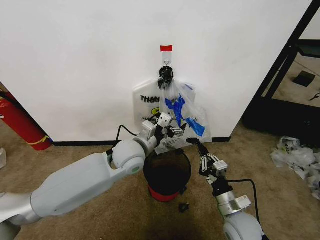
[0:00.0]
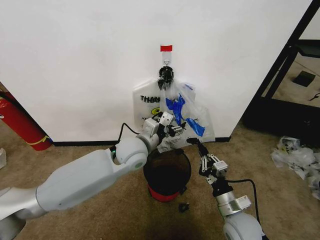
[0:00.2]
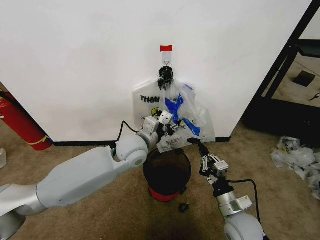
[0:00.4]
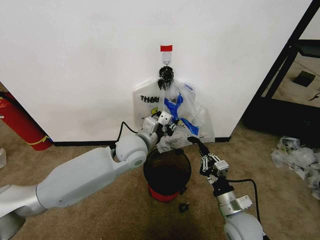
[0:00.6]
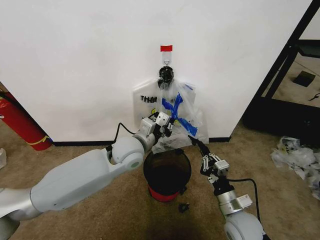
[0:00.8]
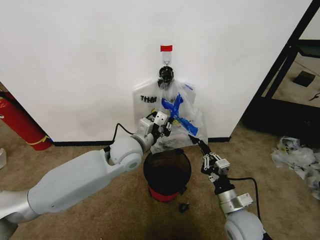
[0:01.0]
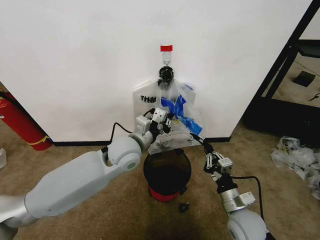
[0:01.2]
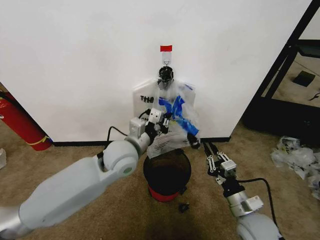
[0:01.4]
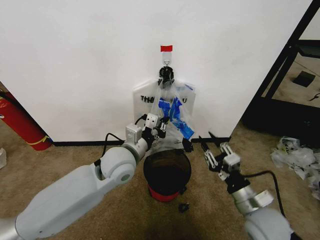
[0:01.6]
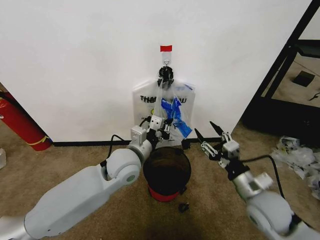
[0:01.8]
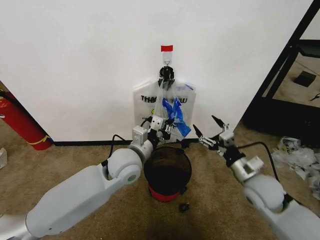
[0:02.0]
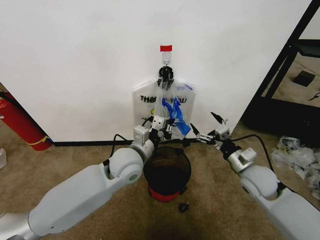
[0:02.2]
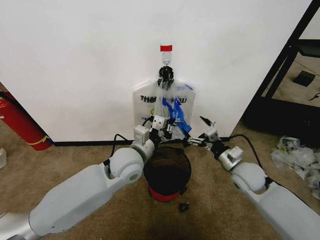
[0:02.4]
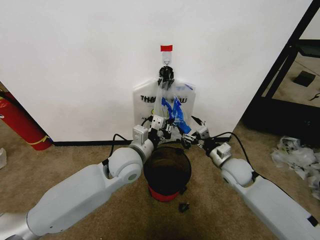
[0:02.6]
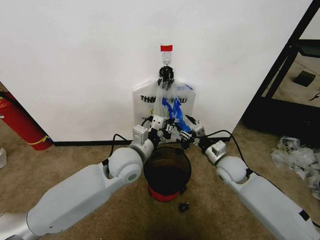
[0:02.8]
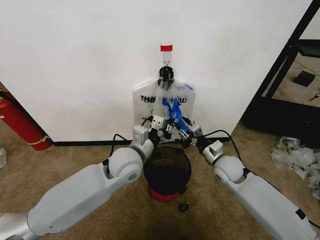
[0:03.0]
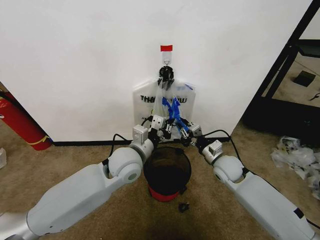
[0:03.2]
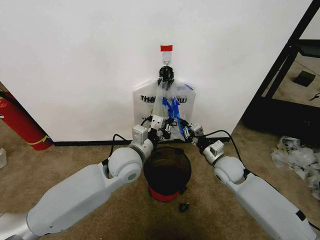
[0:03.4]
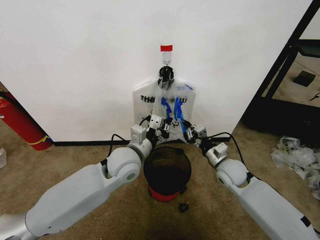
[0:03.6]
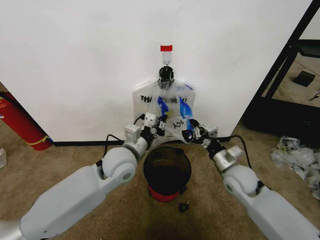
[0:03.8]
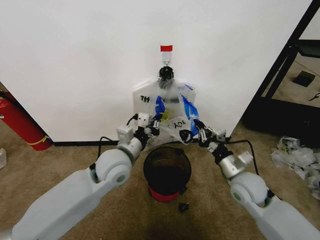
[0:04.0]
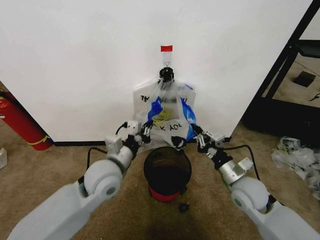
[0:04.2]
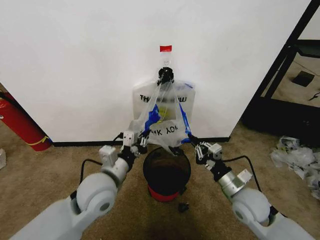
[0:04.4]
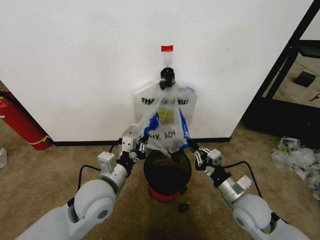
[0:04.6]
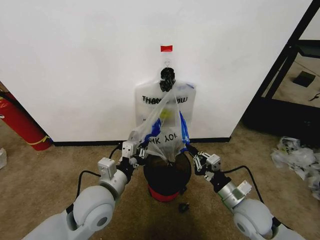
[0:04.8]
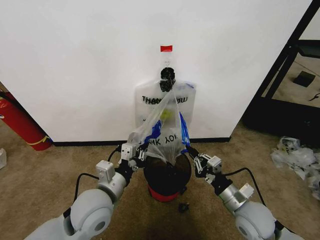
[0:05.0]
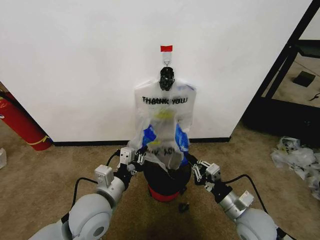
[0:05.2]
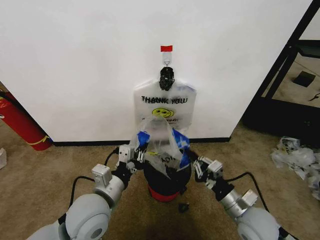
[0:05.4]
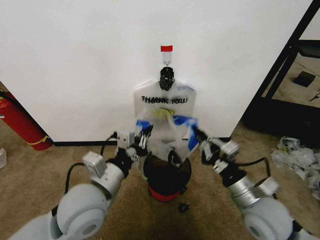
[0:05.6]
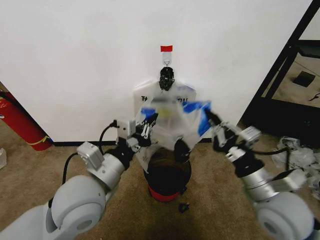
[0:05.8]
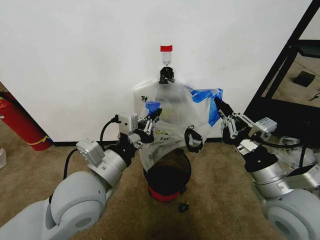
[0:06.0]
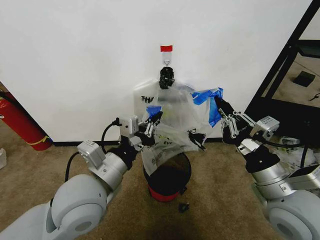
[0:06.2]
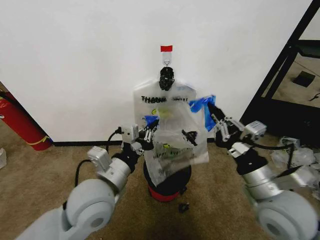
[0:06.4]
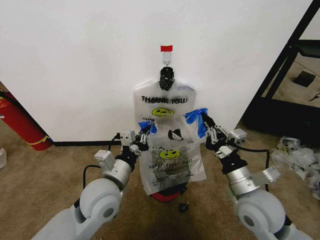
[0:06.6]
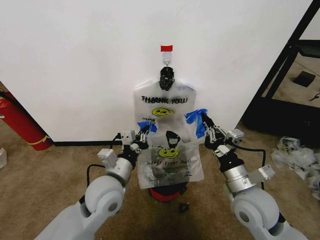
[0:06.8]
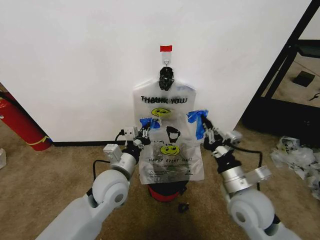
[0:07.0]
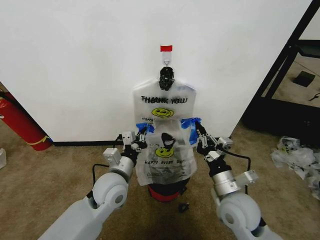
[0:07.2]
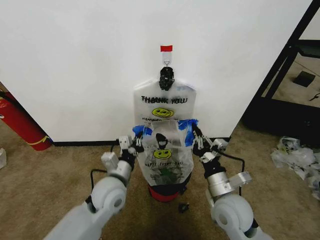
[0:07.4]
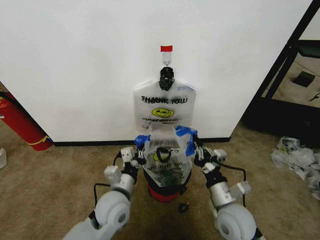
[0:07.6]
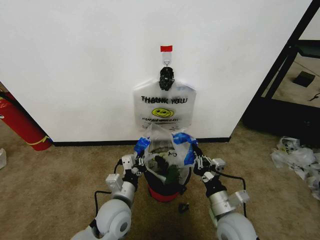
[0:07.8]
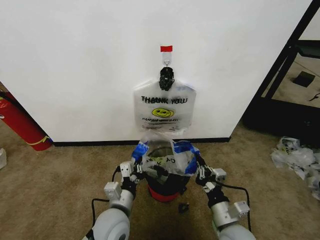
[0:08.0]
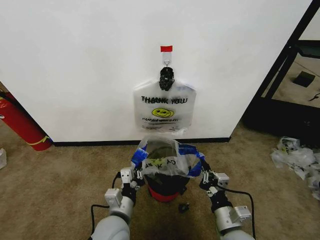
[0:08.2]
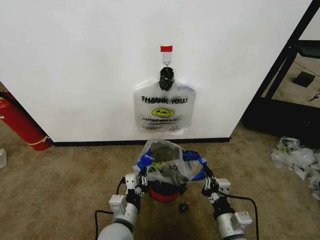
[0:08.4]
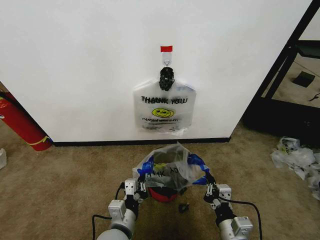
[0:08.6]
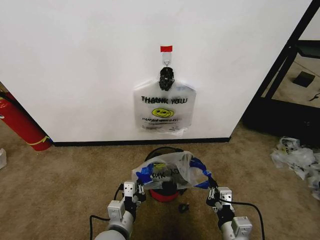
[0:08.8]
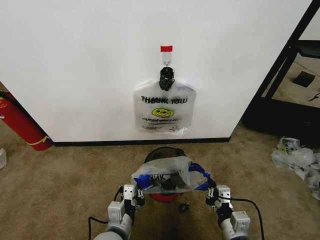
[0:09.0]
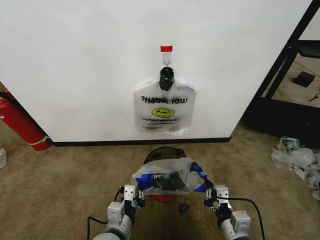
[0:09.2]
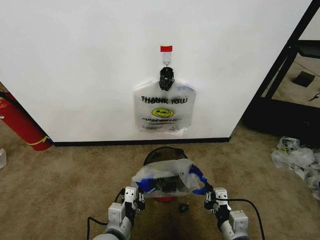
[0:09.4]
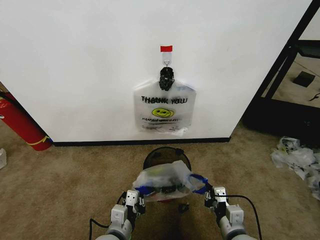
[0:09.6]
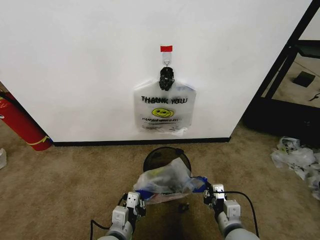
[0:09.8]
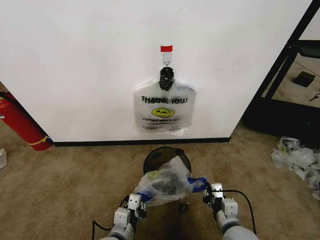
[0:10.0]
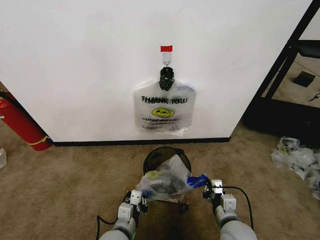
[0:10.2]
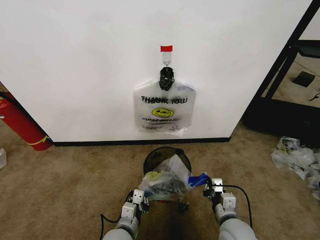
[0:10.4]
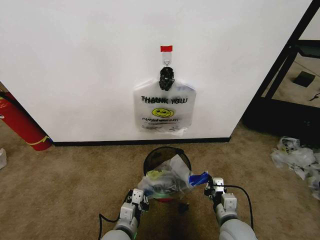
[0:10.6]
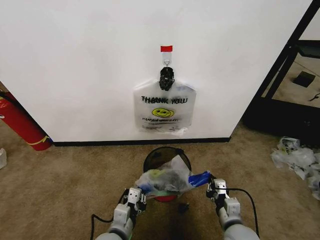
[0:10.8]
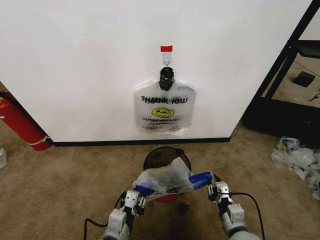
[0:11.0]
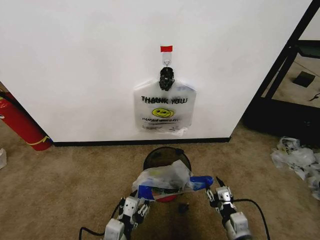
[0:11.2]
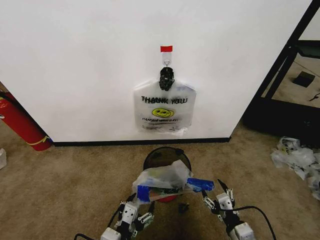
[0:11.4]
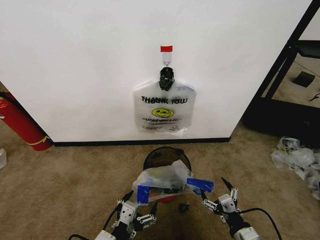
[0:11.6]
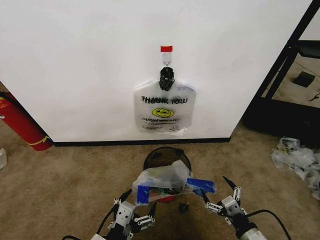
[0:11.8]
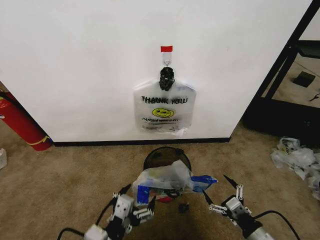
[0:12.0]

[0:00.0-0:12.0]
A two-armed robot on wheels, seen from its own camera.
Task of the whole recording: Pick up the garbage bag from the wall and place it over the trash bin.
0:00.0 to 0:01.6: The right gripper heads upward, covering roughly 5 cm. The left gripper closes.
0:01.6 to 0:03.0: The right gripper heads forward, covering some 20 cm, and opens, then closes again.
0:03.0 to 0:04.4: The right gripper is displaced backward by approximately 10 cm, and closes up. Meanwhile the left gripper moves backward and to the left, about 10 cm.
0:04.4 to 0:06.0: The left gripper travels upward and backward by approximately 10 cm, while the right gripper shifts approximately 15 cm upward and backward.
0:06.0 to 0:07.6: The right gripper heads downward and to the left, covering roughly 15 cm. Meanwhile the left gripper shifts some 20 cm downward.
0:07.6 to 0:09.0: Both grippers travel together backward, roughly 10 cm.
0:09.0 to 0:10.4: The left gripper moves approximately 5 cm, while the right gripper goes some 5 cm forward.
0:10.4 to 0:12.0: The left gripper goes roughly 15 cm upward and backward, and opens up, while the right gripper moves to the right and backward, about 15 cm, and opens up.

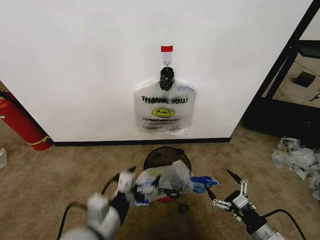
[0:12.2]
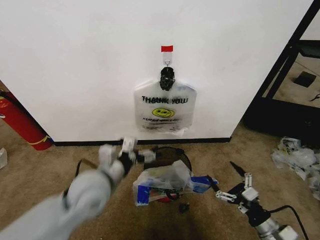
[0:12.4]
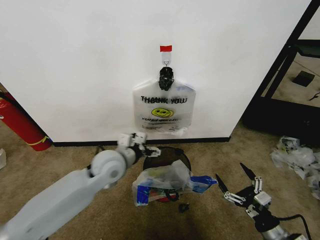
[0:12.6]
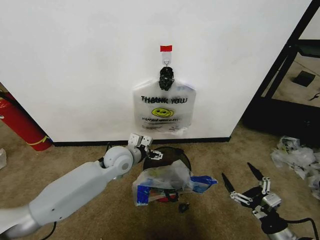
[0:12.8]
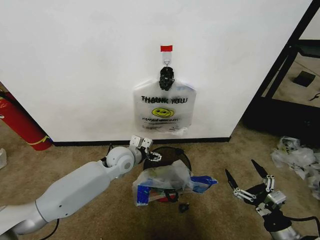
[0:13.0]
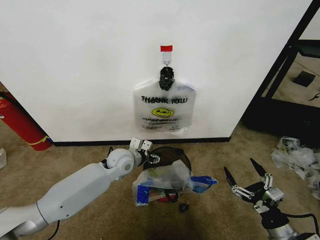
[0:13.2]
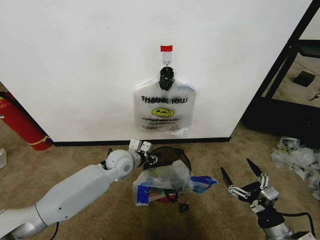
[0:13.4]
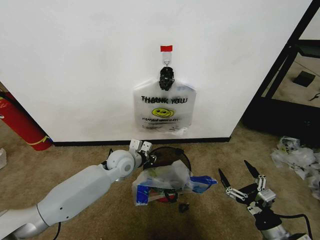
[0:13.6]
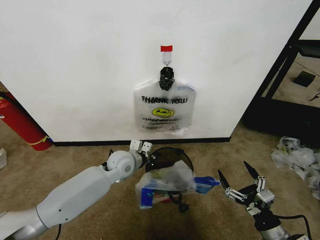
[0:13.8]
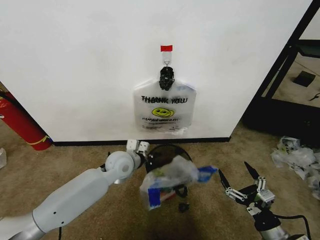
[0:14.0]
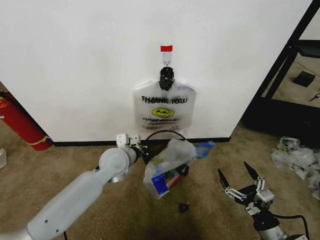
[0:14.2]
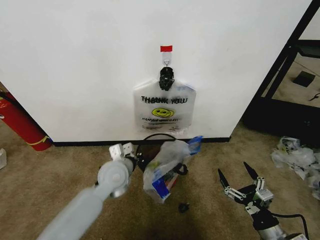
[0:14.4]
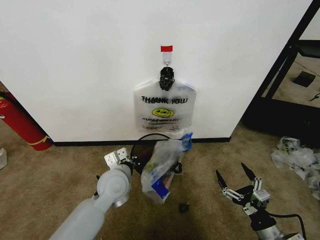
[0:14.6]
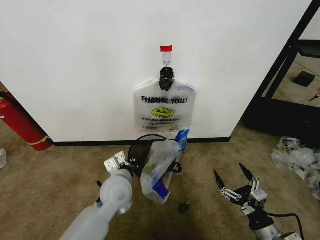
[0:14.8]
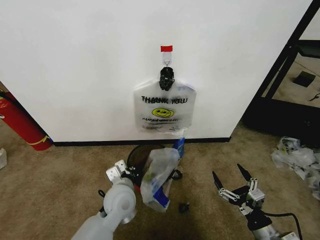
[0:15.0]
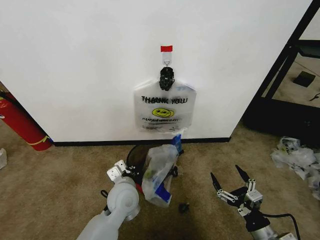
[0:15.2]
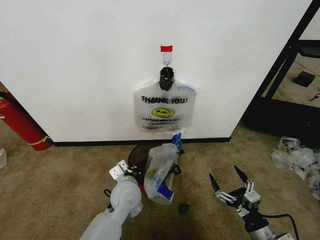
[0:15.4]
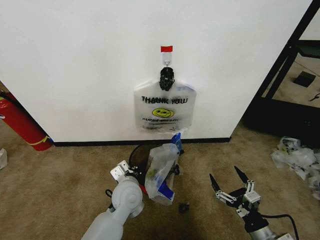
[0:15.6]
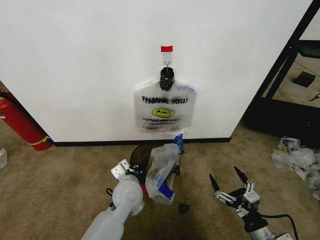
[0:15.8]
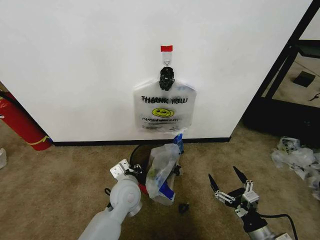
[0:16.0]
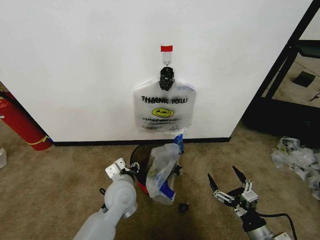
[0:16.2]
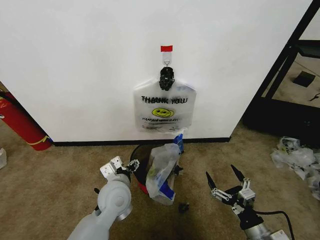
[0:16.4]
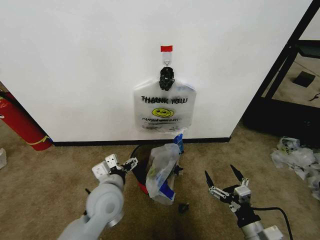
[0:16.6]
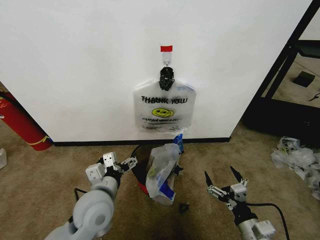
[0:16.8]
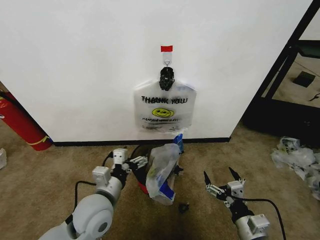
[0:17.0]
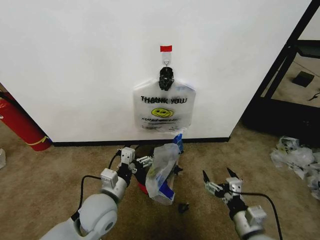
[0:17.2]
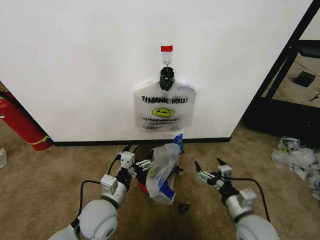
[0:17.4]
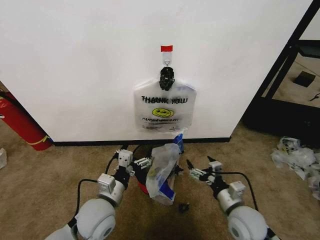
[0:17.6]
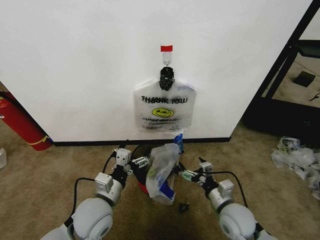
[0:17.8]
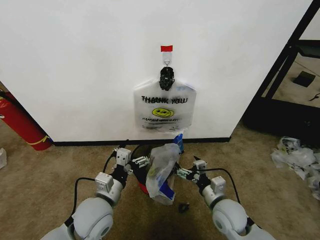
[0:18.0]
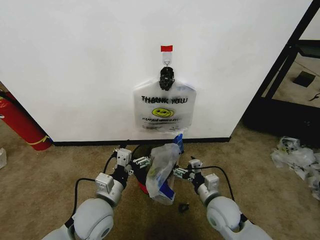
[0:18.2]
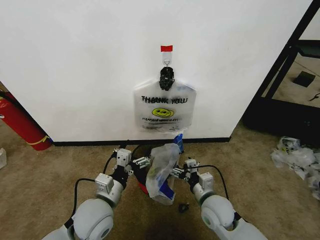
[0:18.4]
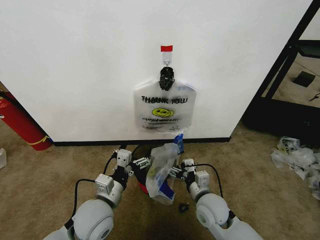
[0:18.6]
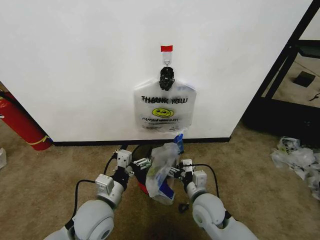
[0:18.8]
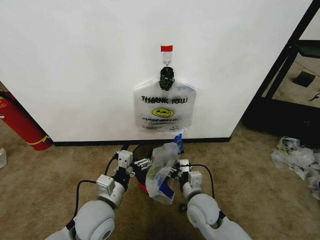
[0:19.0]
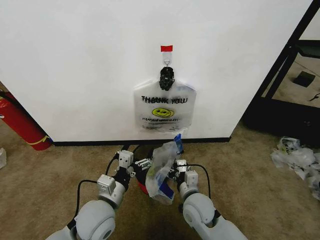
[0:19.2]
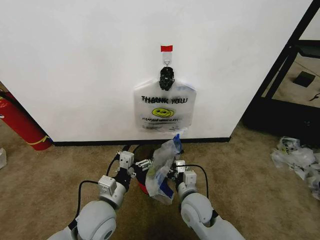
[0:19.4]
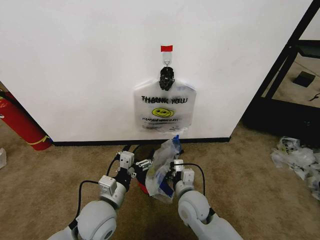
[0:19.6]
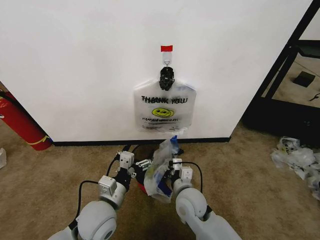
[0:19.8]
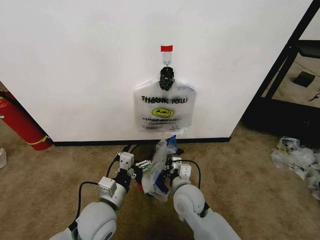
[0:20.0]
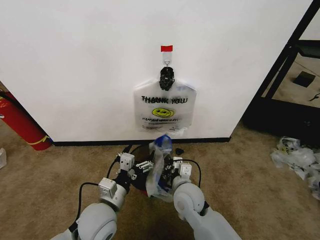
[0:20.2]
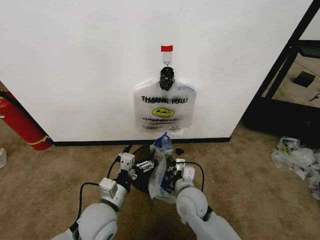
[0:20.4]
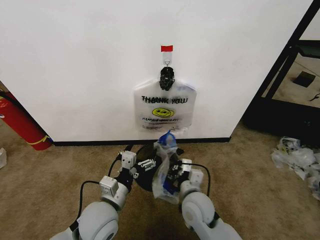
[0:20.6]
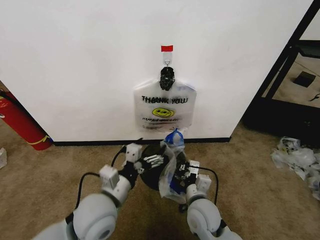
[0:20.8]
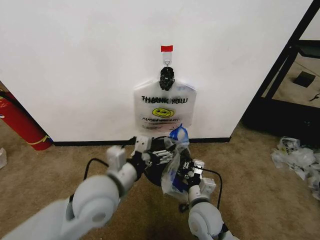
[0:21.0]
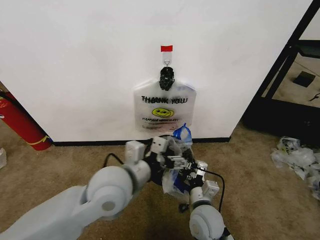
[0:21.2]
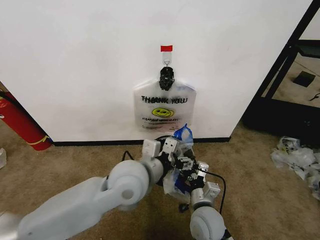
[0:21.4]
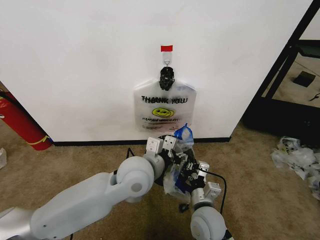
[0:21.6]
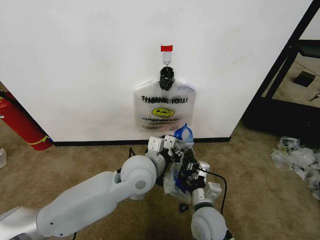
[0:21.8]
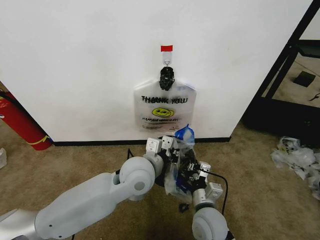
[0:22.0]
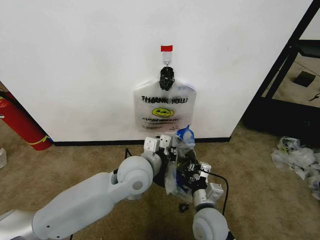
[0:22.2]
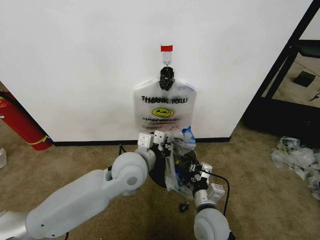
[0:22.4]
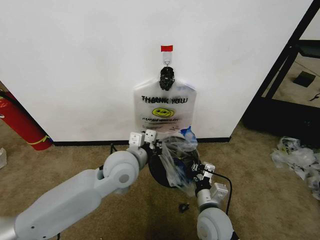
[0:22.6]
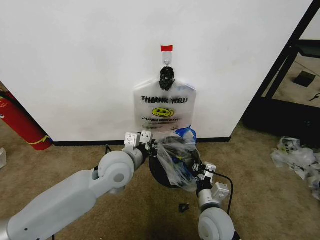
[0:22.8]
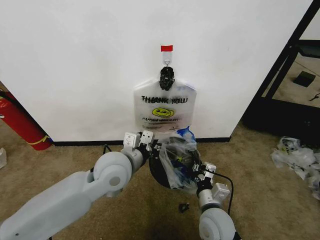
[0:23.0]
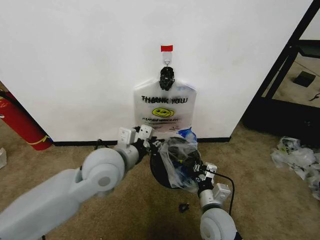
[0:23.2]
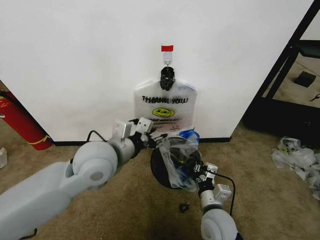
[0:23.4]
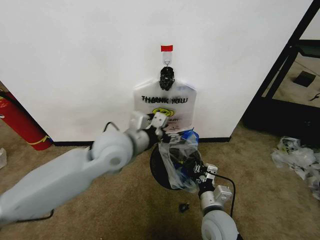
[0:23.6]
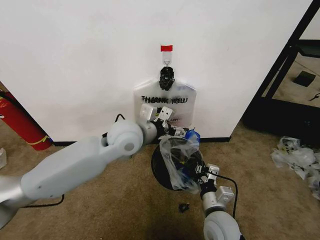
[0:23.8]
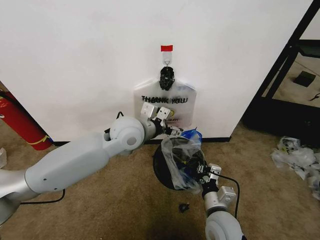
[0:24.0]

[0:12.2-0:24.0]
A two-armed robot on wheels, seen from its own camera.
Task of the whole recording: Pick up the garbage bag from the wall and place it over the trash bin.
0:12.2 to 0:13.6: The left gripper is displaced forward by about 25 cm, and closes up.
0:13.6 to 0:15.2: The left gripper is displaced backward by about 10 cm.
0:15.2 to 0:16.6: The left gripper ends up some 5 cm from where it was, and opens.
0:16.6 to 0:18.2: The right gripper travels forward and to the left by about 15 cm. The left gripper changes place by approximately 5 cm.
0:18.2 to 0:19.6: The right gripper heads to the left, covering about 10 cm, and closes up.
0:19.6 to 0:21.0: The right gripper closes, while the left gripper travels upward by approximately 10 cm.
0:21.0 to 0:22.6: The left gripper is displaced forward by approximately 10 cm, and closes.
0:22.6 to 0:24.0: The left gripper travels forward and upward by approximately 10 cm, and opens.
